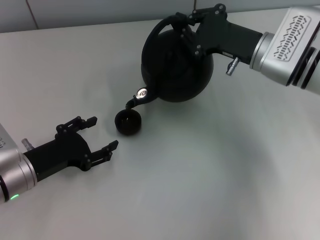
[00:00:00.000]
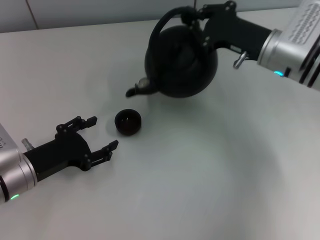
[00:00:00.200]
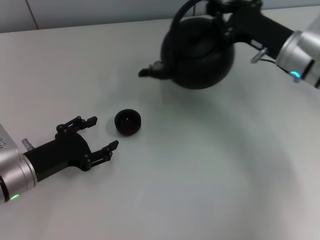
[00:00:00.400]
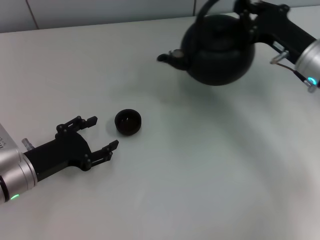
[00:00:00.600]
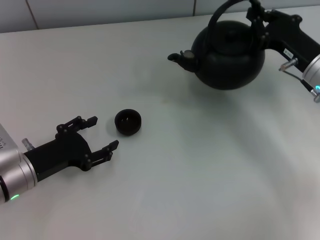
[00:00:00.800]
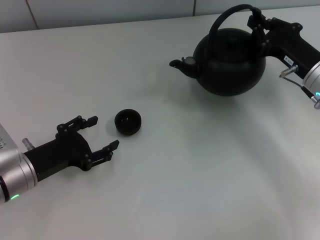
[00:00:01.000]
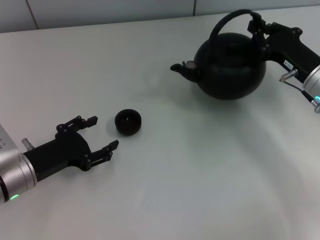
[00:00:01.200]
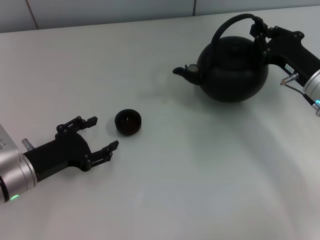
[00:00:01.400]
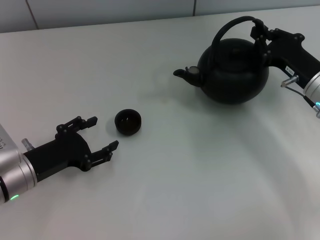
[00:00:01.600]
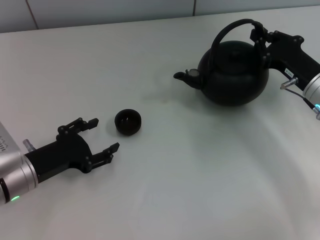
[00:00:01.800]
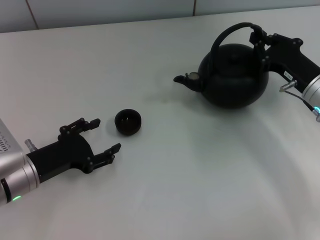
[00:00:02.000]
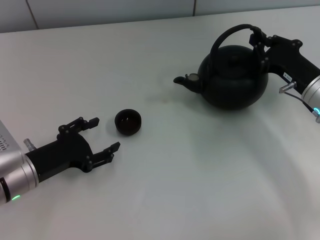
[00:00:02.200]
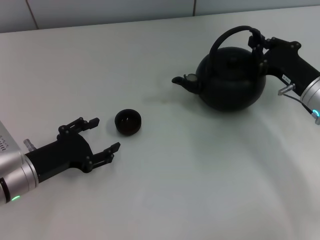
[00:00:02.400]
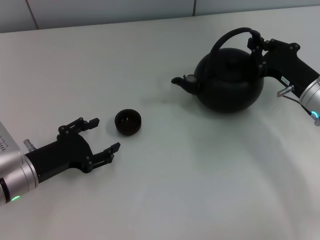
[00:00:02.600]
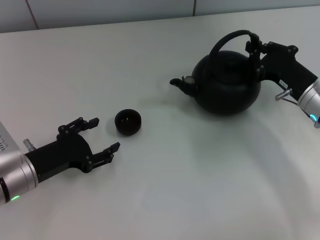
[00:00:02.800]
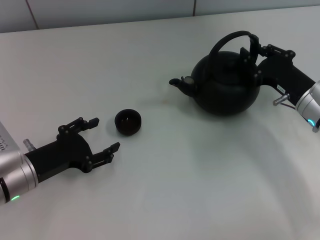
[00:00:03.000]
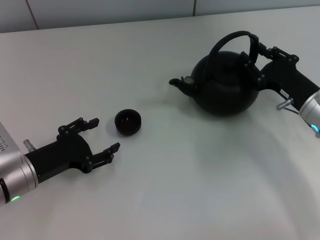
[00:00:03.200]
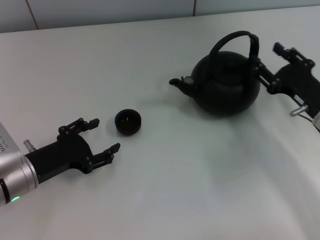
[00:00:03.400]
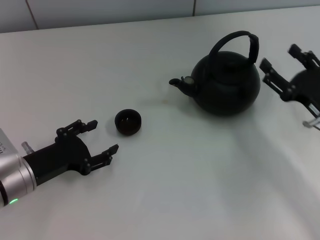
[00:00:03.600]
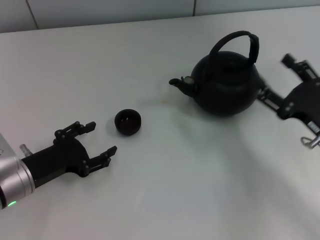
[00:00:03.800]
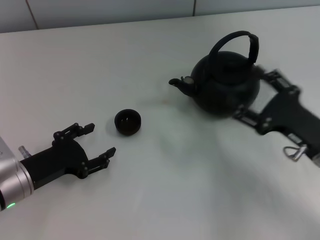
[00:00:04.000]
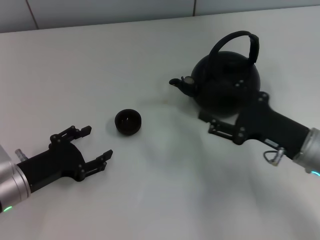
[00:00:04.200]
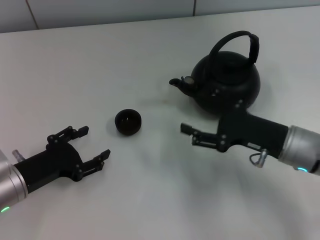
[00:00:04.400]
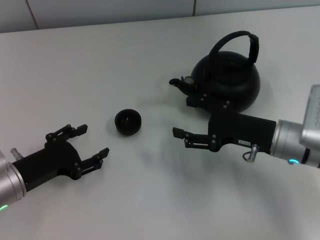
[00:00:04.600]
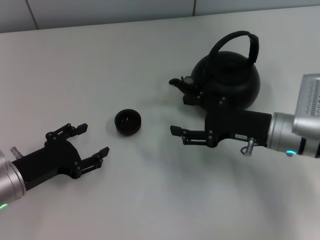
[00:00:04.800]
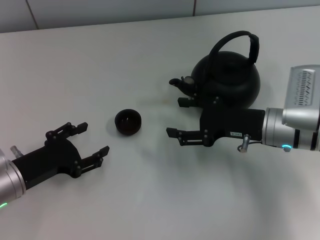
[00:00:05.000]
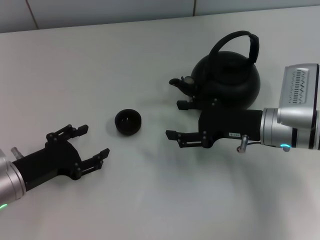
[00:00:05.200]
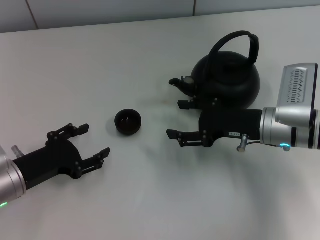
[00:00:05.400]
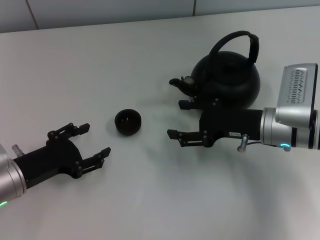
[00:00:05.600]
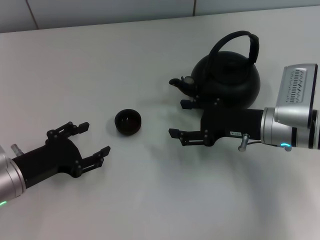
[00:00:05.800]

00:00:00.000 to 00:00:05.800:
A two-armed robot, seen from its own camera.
Task of the whole recording: Grasp the handle of the teapot with one hand and pour tea into the teacup.
Step, 00:00:00.200 to 00:00:03.400: Put down the teapot with the right gripper.
00:00:00.000 to 00:00:01.400: The right gripper travels to the right by about 10 cm.
00:00:01.400 to 00:00:02.800: The grippers make only small movements.
00:00:02.800 to 00:00:04.400: The right gripper heads backward, covering some 5 cm, and opens up.
00:00:04.400 to 00:00:05.800: The right gripper moves about 5 cm.
